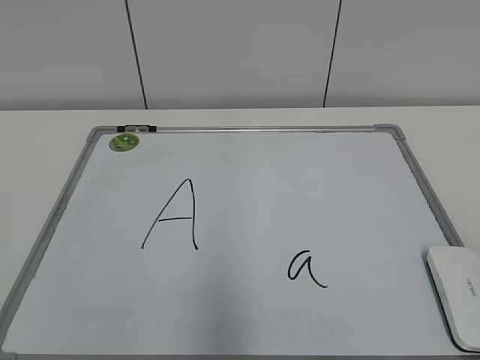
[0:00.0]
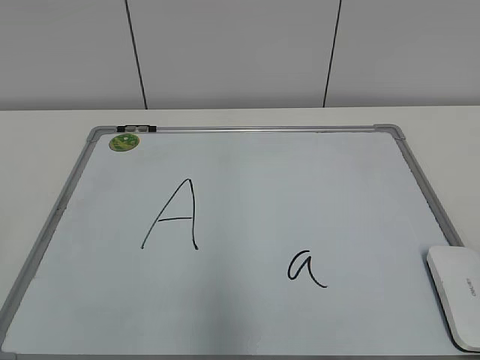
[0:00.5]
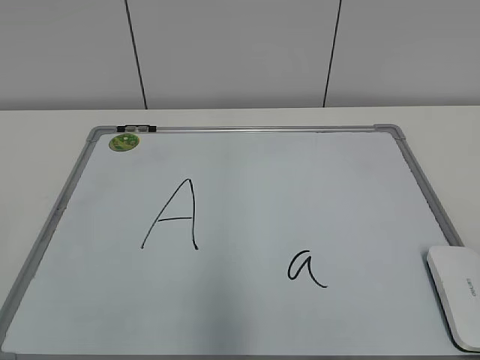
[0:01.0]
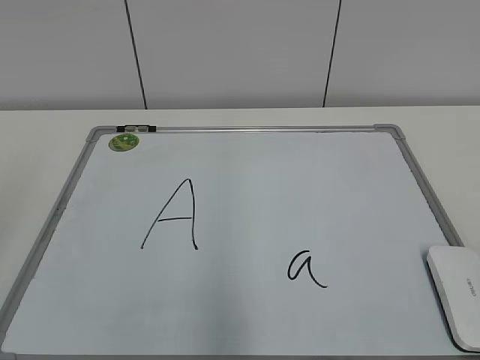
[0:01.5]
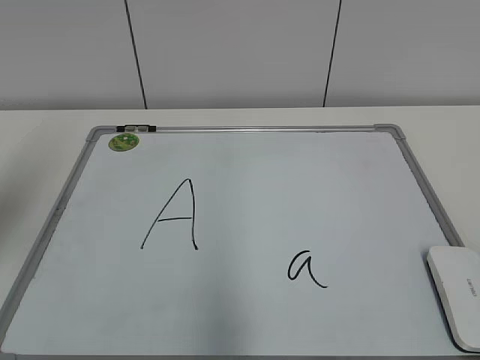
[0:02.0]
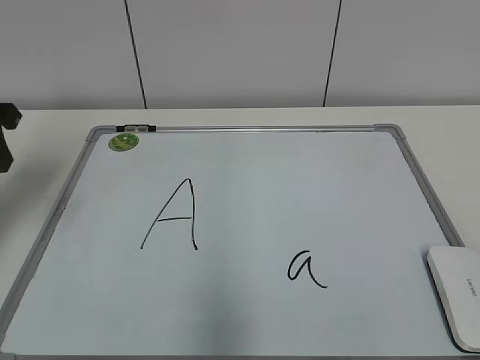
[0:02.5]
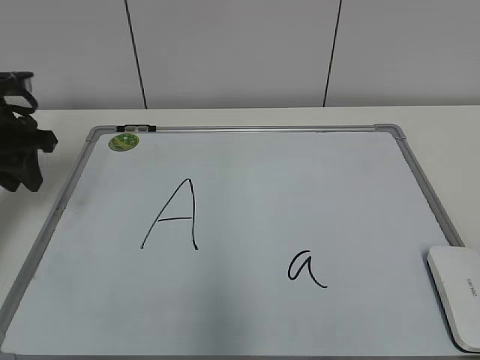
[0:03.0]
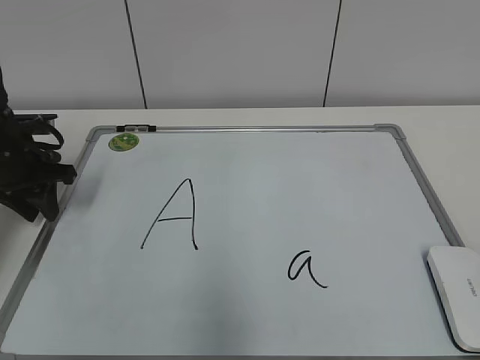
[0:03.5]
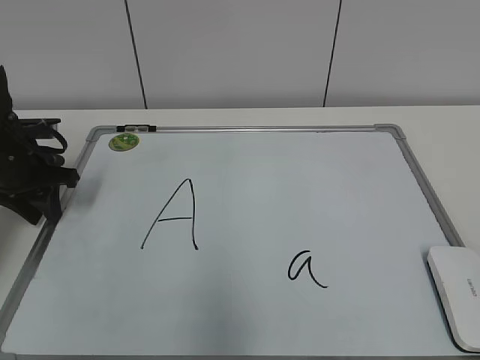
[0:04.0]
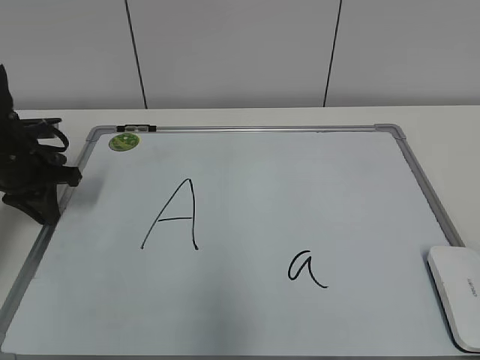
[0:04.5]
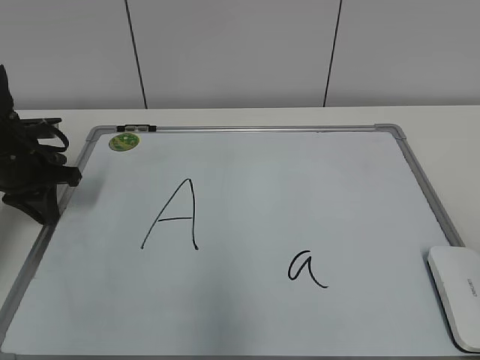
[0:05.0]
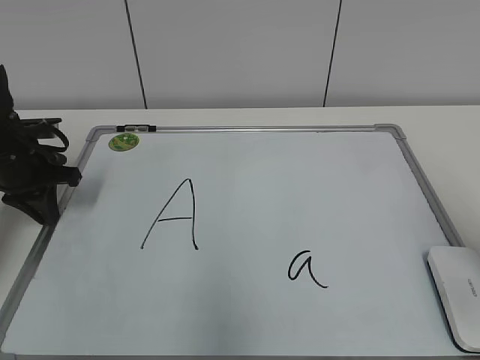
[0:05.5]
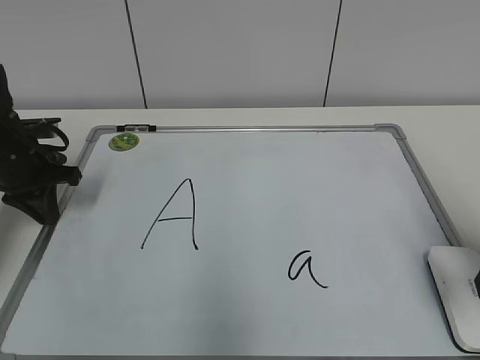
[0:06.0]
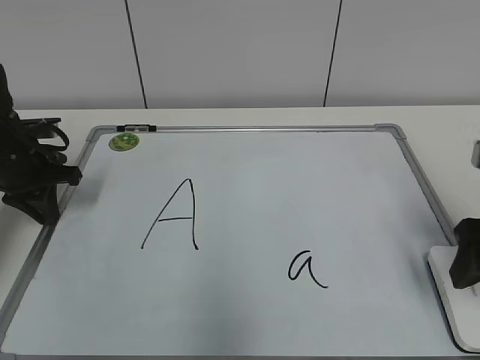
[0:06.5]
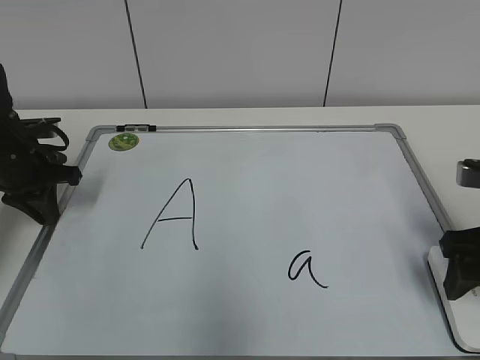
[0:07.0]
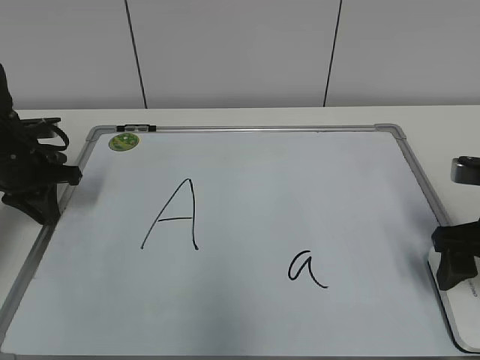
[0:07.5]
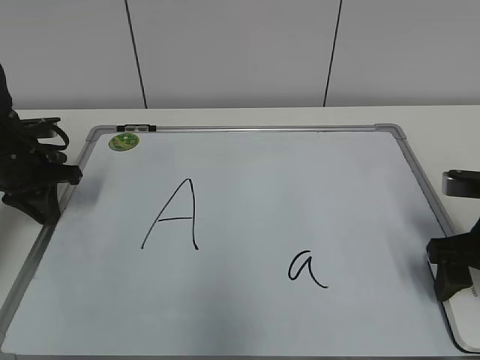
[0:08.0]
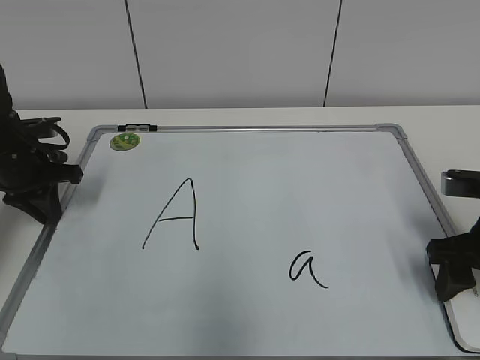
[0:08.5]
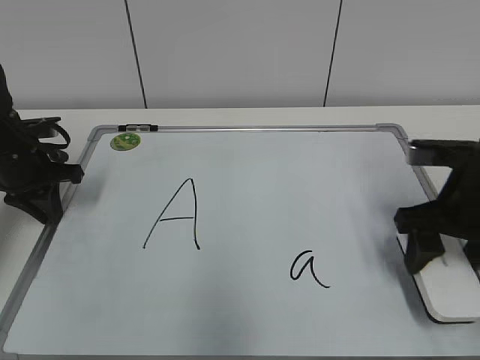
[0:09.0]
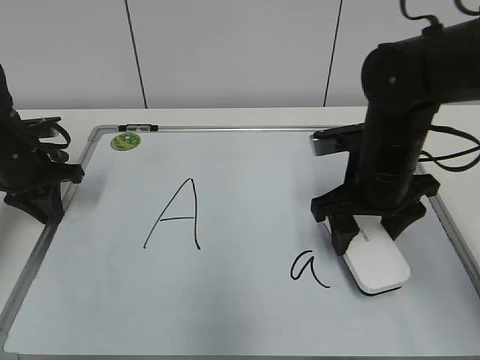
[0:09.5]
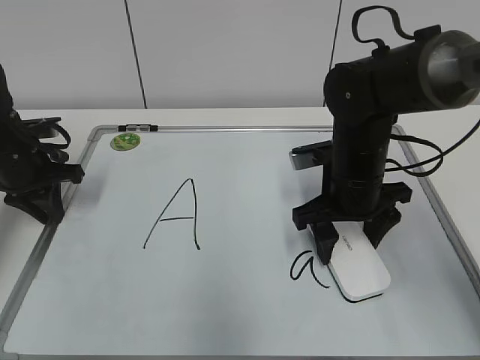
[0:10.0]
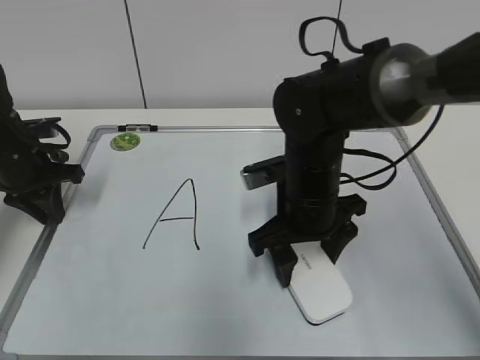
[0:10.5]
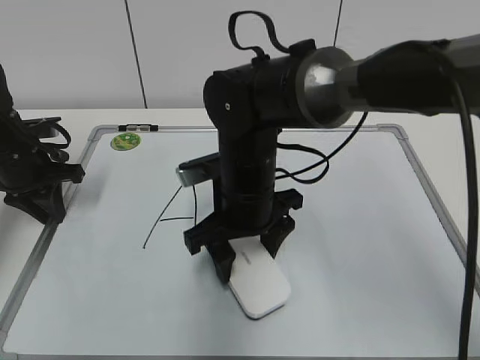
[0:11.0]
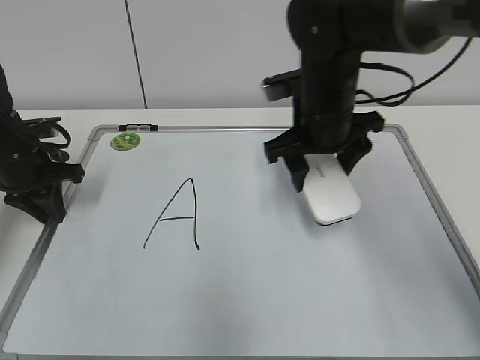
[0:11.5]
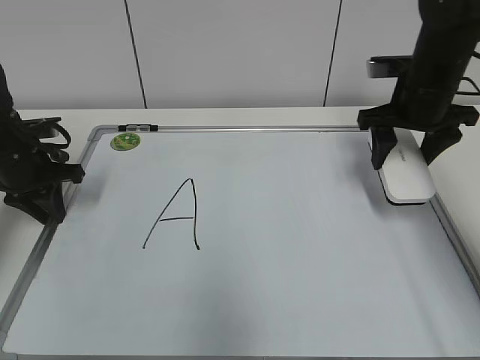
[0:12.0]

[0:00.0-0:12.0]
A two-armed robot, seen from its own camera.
Task of the whole recording: pick up the eraser on the blackboard and erase the letter "a".
Step, 0:00.0 to 0:04.0: Hold the drawing board steady with your left hand.
Step, 0:05.0 to 0:08.0: Grab the eraser with your right hand.
Step, 0:09.0 to 0:10.5: Erase the letter a with your right hand.
0:02.0 to 0:04.0: The left gripper shifts about 25 cm downward and forward.
0:04.0 to 0:06.0: The left gripper closes; the right gripper travels forward by about 20 cm.
0:06.0 to 0:08.0: The right gripper heads downward and forward, covering some 10 cm.
0:08.0 to 0:10.0: The right gripper is displaced to the left and forward by some 15 cm, and closes its fingers.
0:10.0 to 0:12.0: The right gripper heads to the right, forward and upward, covering roughly 15 cm.

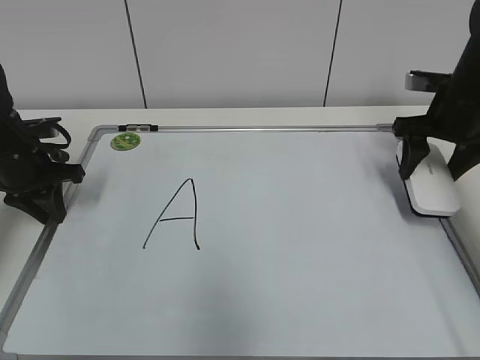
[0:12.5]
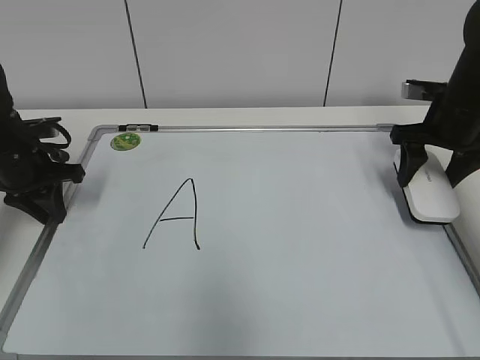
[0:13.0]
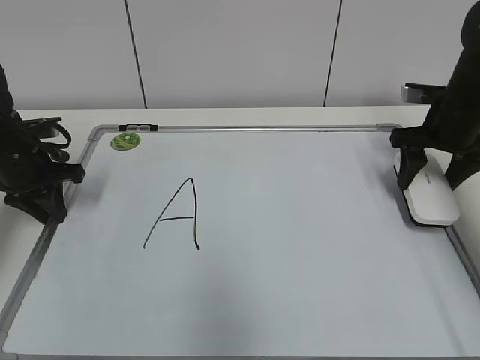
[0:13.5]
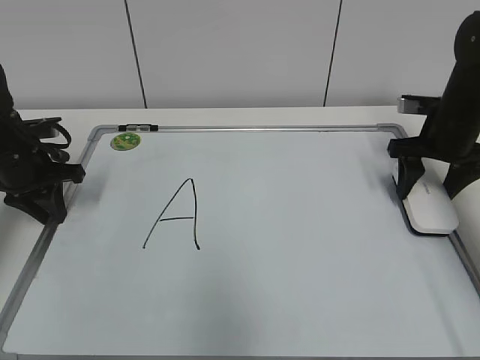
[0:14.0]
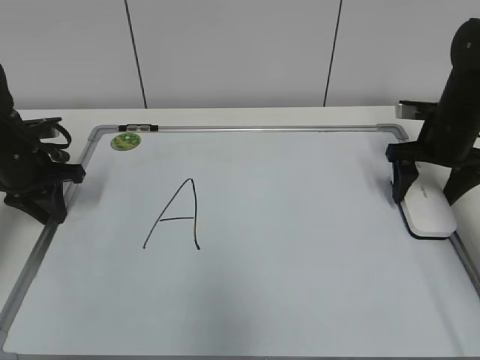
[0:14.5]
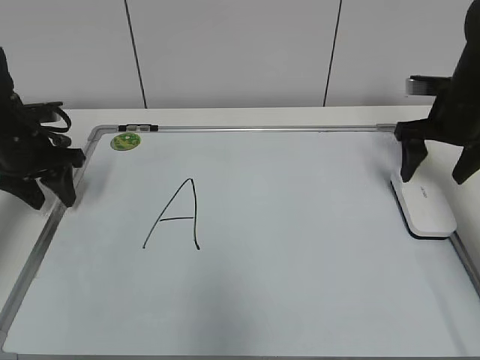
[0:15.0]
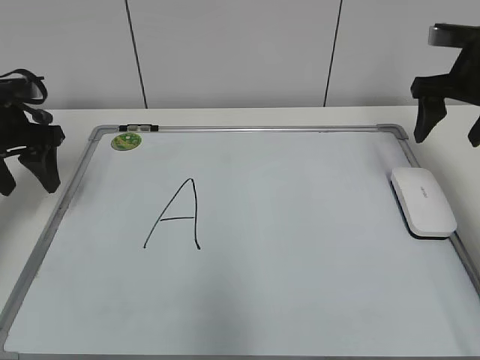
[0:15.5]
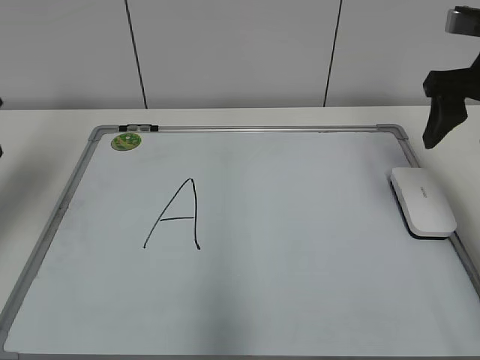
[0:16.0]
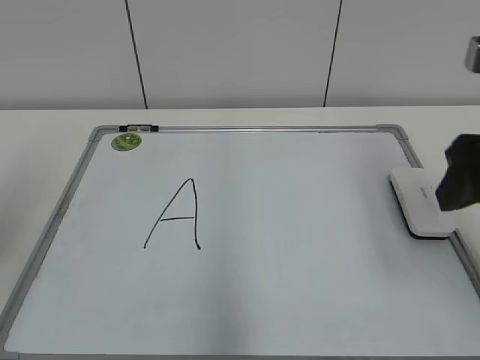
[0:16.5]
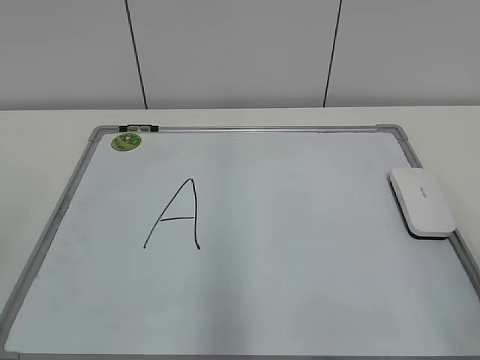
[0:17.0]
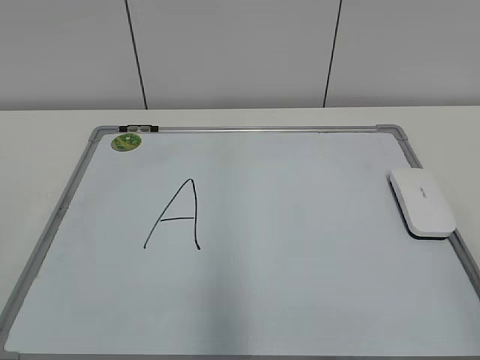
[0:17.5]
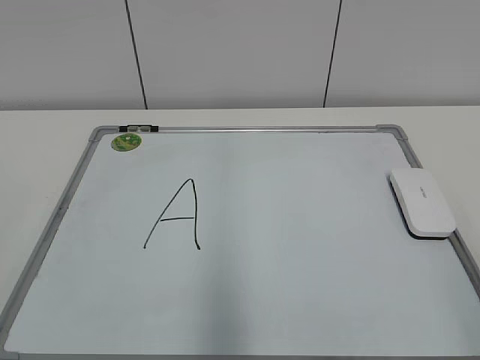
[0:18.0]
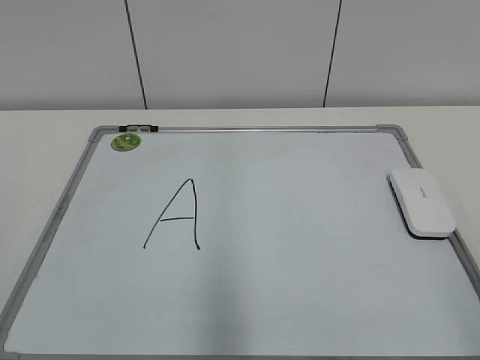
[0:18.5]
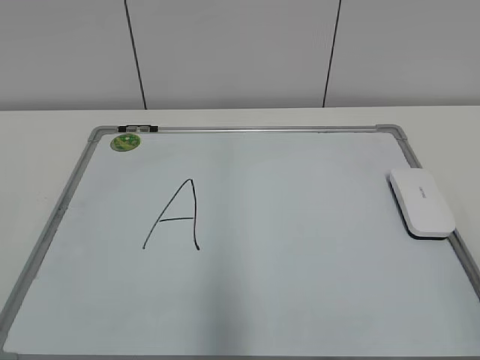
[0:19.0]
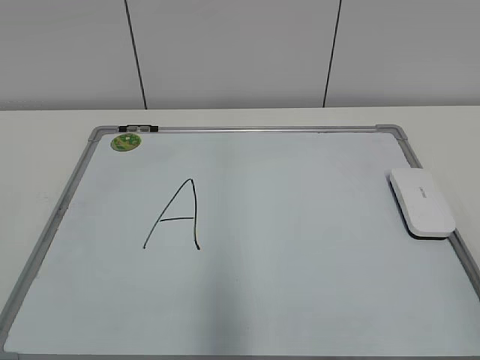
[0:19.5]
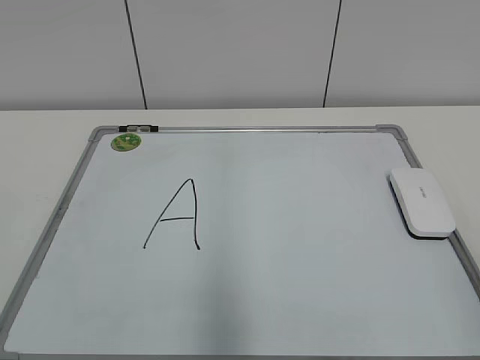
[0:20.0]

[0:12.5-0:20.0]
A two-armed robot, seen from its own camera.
Task of the whole recording: pick up the eraser on the blackboard and erase the letter "a".
0:12.5 to 0:14.5: The right gripper opens.
0:14.5 to 0:16.5: The two grippers go approximately 25 cm backward and upward. The left gripper opens; the right gripper closes up.
0:16.5 to 0:18.0: The grippers both shift backward by roughly 20 cm.
